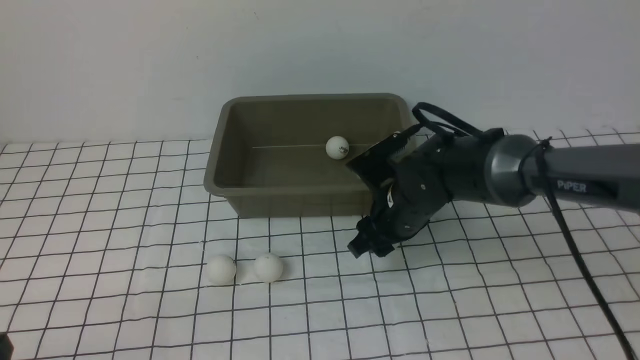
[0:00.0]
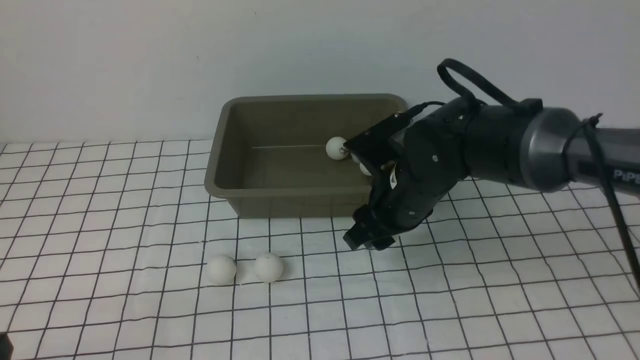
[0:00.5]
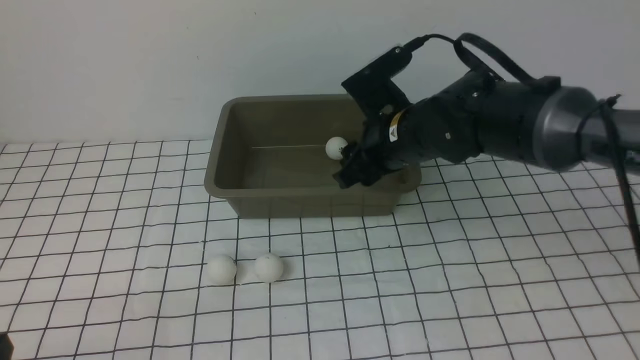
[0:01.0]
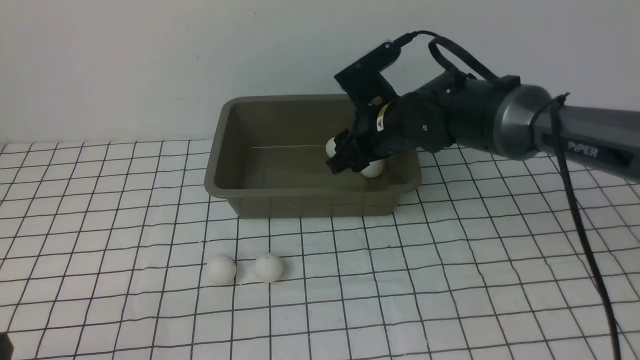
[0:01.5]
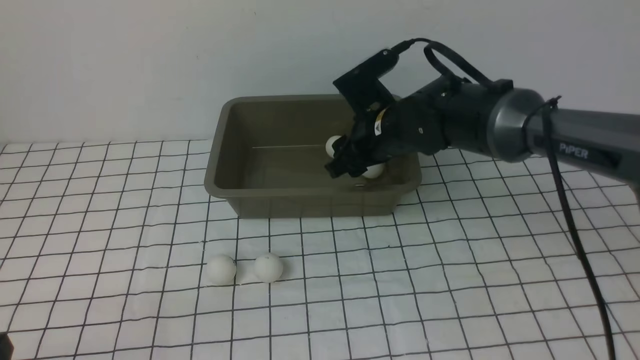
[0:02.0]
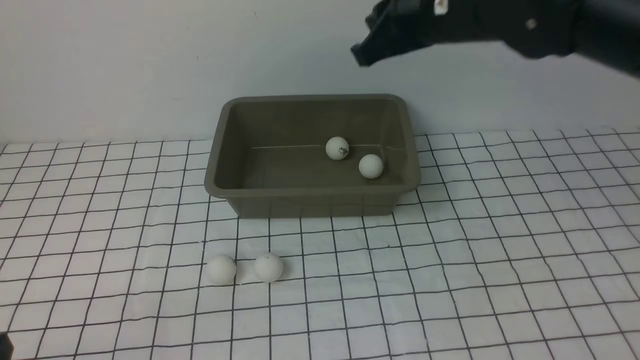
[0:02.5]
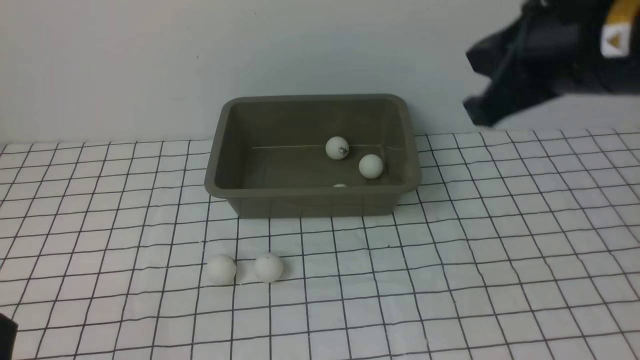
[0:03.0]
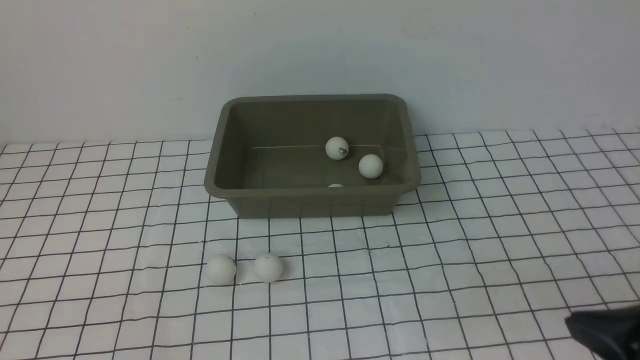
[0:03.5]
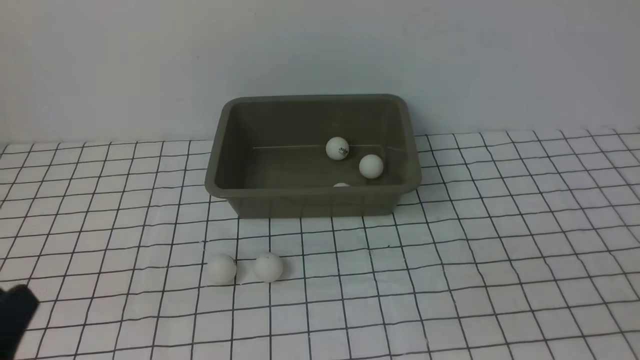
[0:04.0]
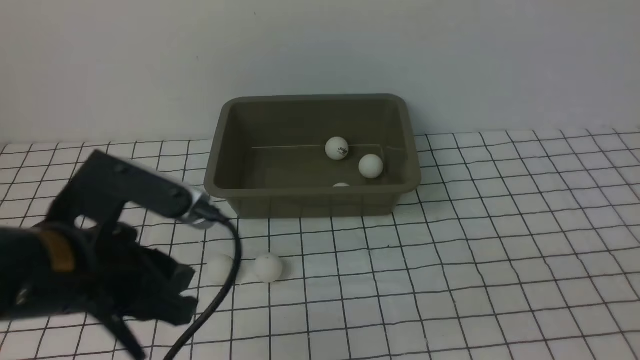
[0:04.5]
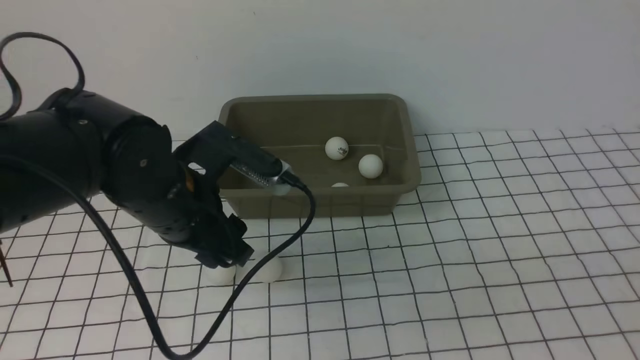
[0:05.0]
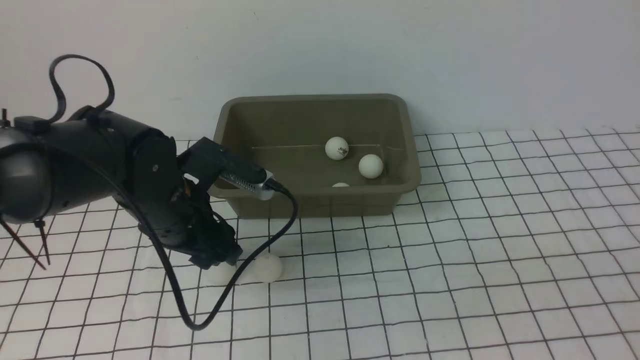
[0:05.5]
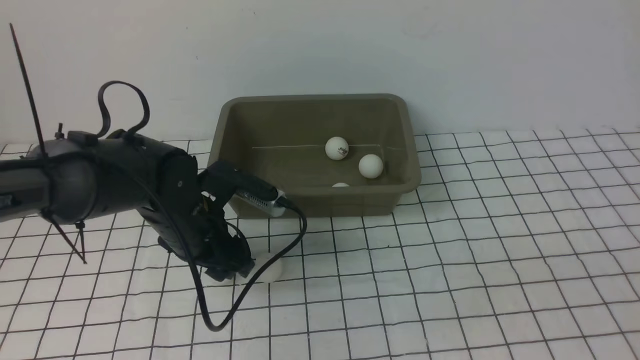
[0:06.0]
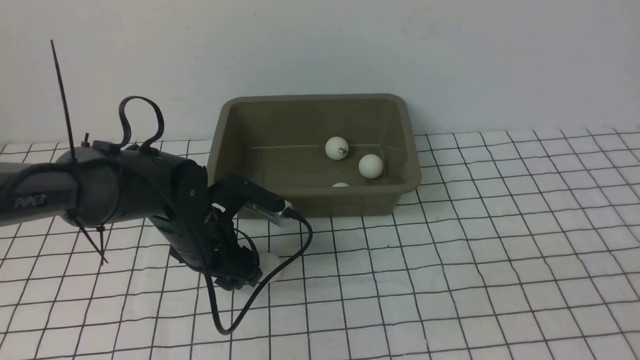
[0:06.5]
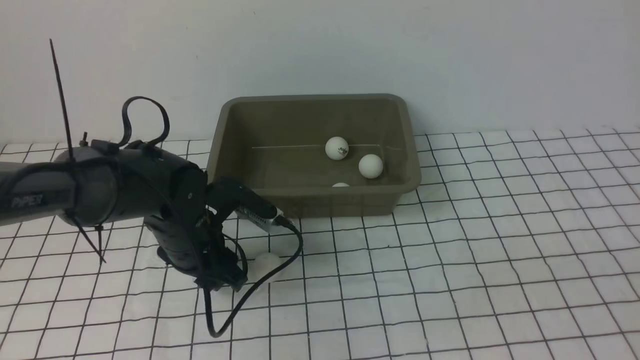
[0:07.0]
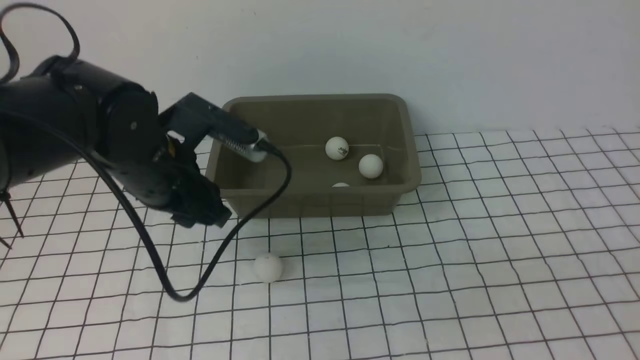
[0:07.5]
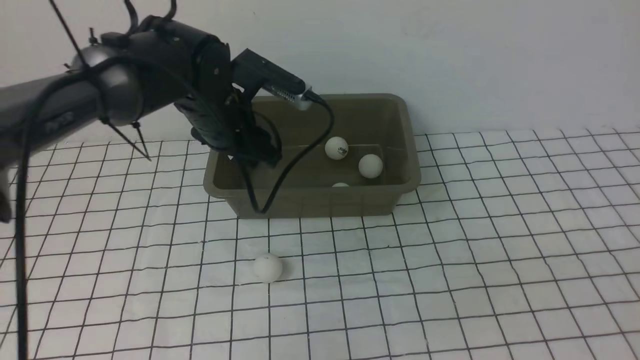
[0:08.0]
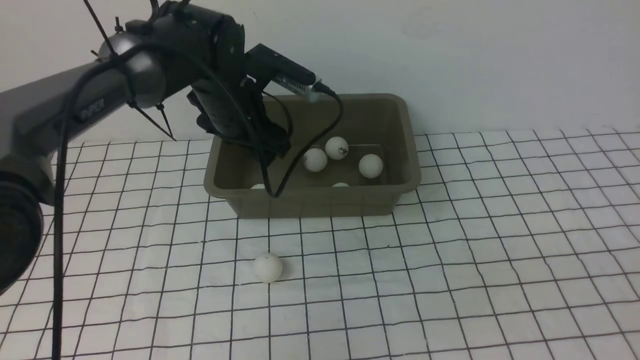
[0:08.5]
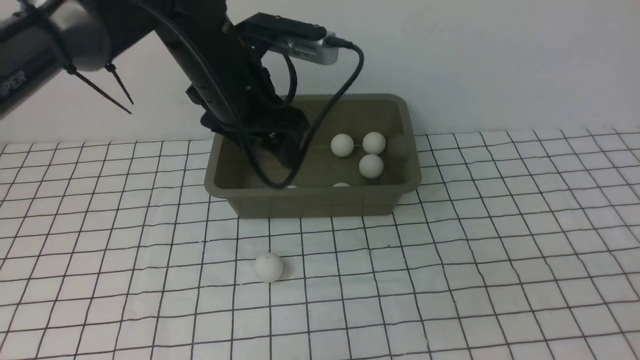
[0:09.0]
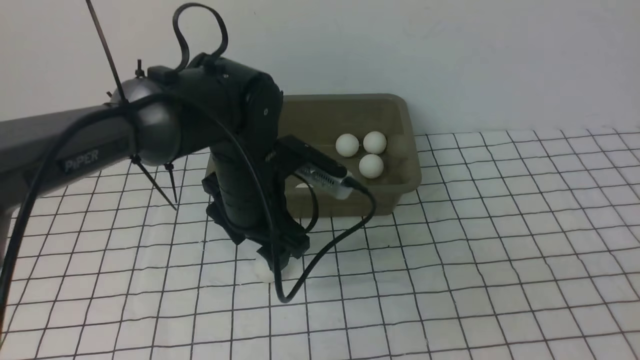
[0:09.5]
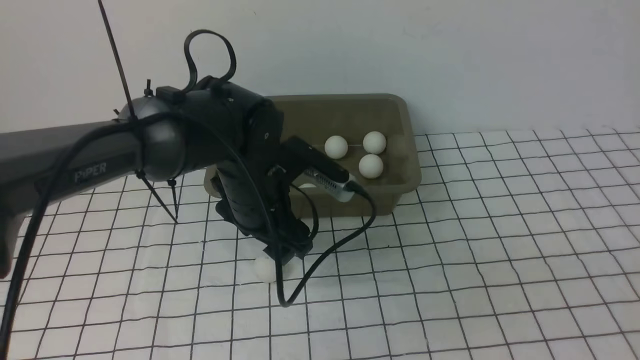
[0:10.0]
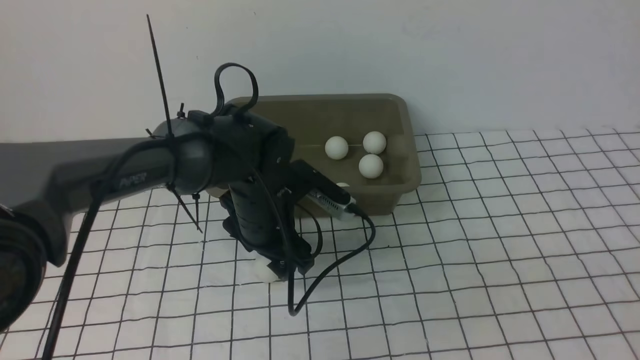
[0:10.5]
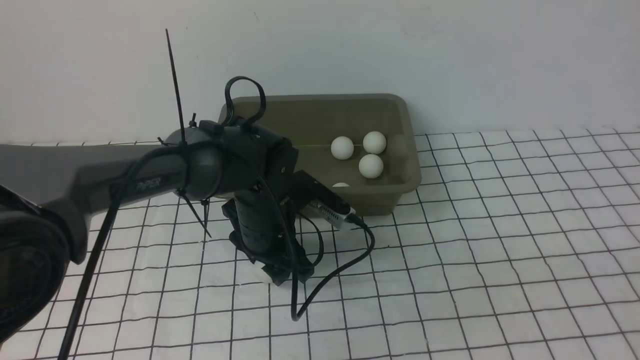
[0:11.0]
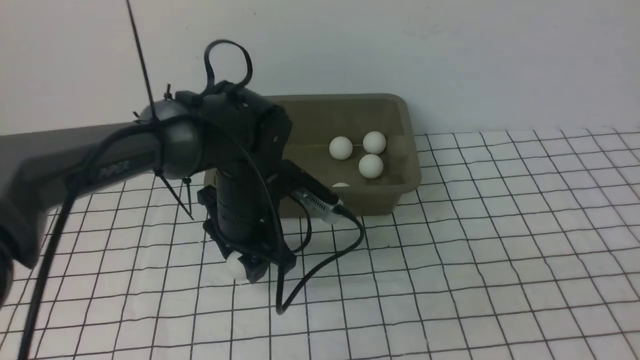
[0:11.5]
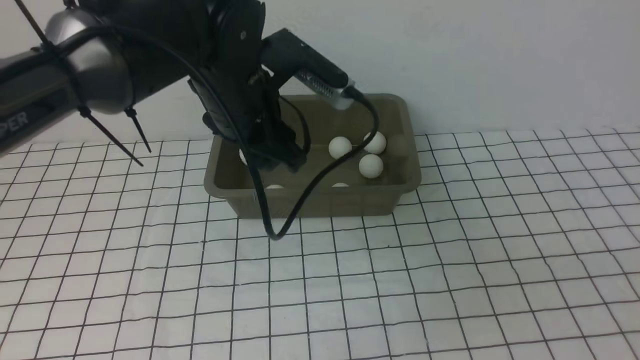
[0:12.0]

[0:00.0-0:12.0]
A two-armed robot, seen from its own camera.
Step, 0:00.5 to 0:02.0: use the right arm to put the table tennis ball into the box.
Step, 0:02.5 to 0:07.0: use the left arm to clamp the table tennis ball closest to it.
Step, 0:07.5 to 0:08.5: use the left arm to put the table tennis ball into the box.
Step, 0:09.0 to 0:11.5: use the left arm to clamp the table tennis ball closest to it.
0:00.0 to 0:02.0: The right gripper goes some 10 cm upward and forward.
0:02.0 to 0:04.0: The right gripper heads backward and to the right, covering roughly 40 cm, and closes up. The left gripper is displaced upward by about 5 cm.
0:04.0 to 0:06.0: The left gripper heads forward, covering approximately 25 cm, and opens.
0:06.0 to 0:08.0: The left gripper moves forward and upward, roughly 10 cm.
0:08.0 to 0:10.0: The left gripper is displaced backward by some 10 cm.
0:10.0 to 0:12.0: The left gripper travels upward by roughly 10 cm.

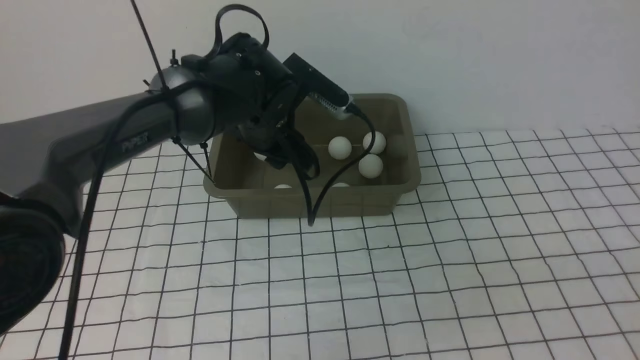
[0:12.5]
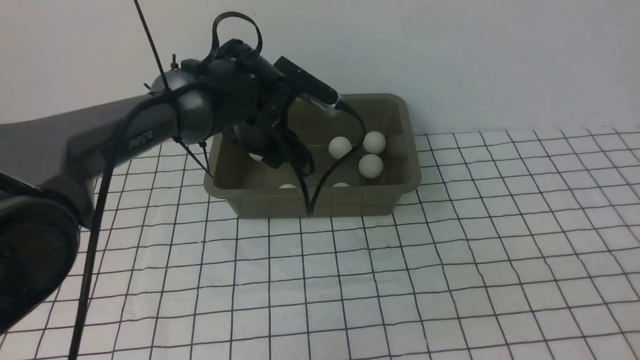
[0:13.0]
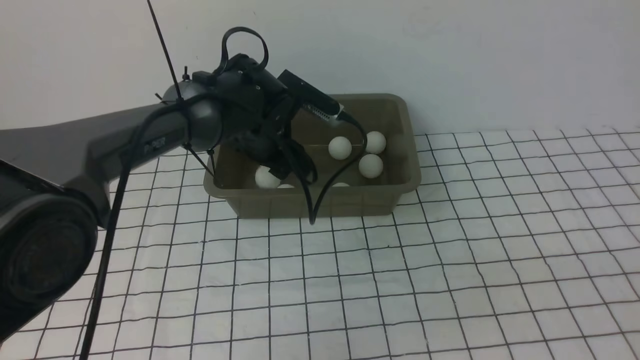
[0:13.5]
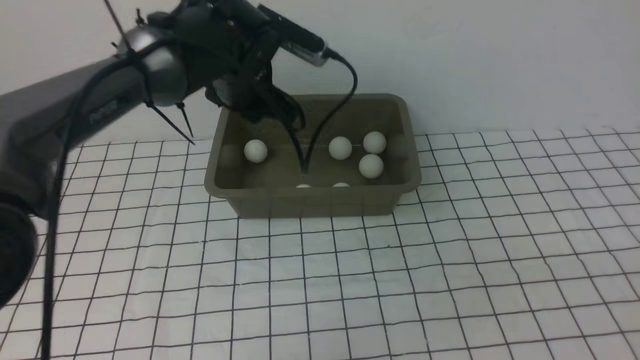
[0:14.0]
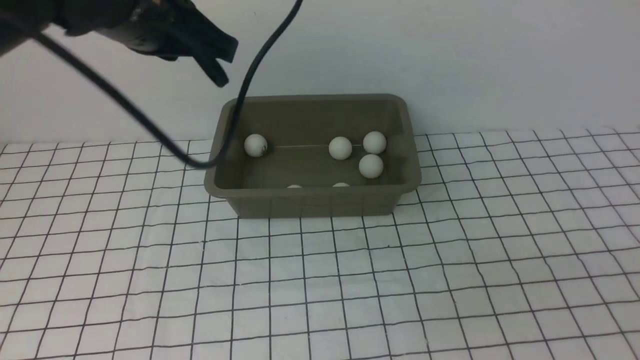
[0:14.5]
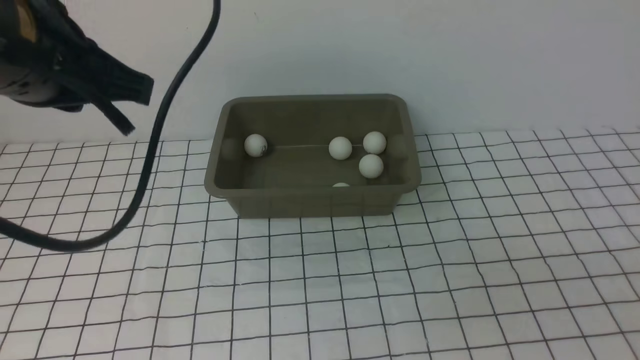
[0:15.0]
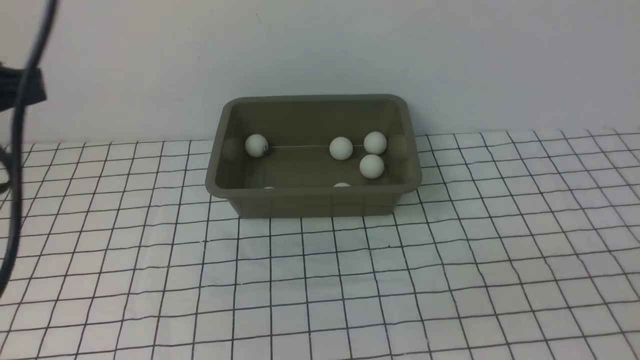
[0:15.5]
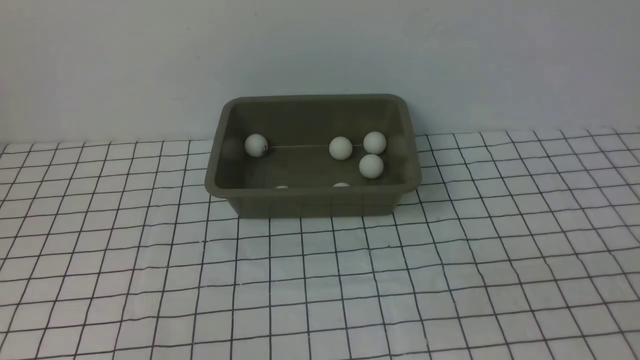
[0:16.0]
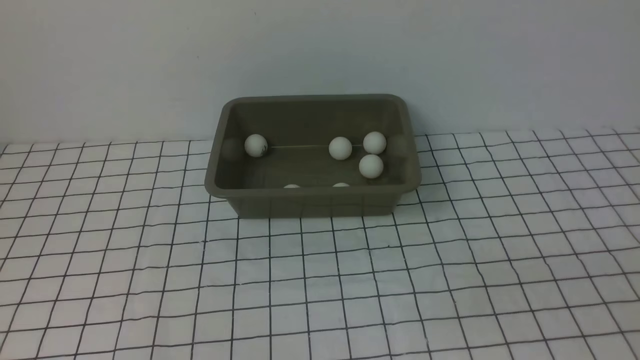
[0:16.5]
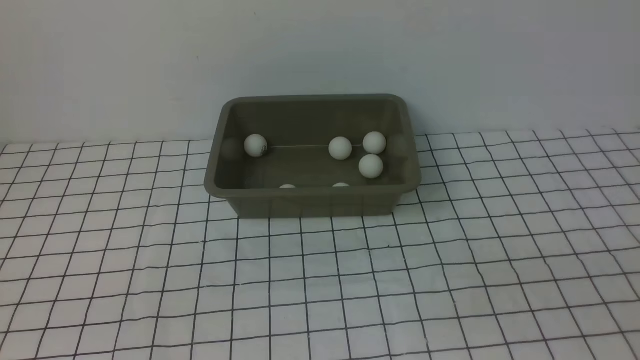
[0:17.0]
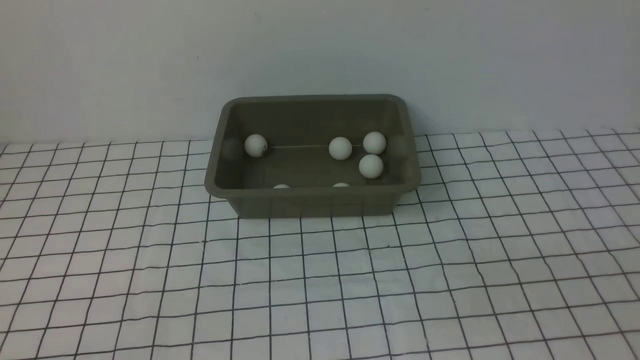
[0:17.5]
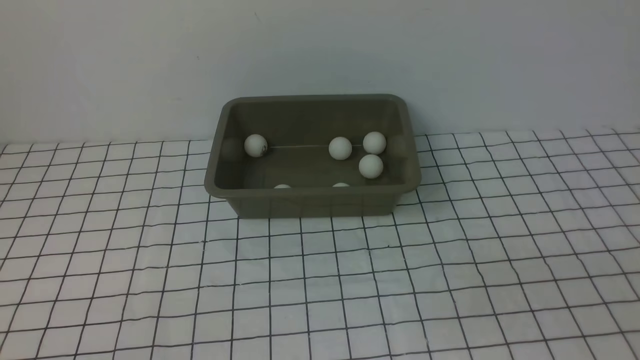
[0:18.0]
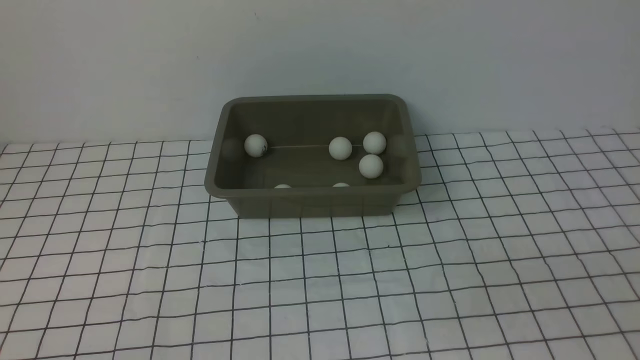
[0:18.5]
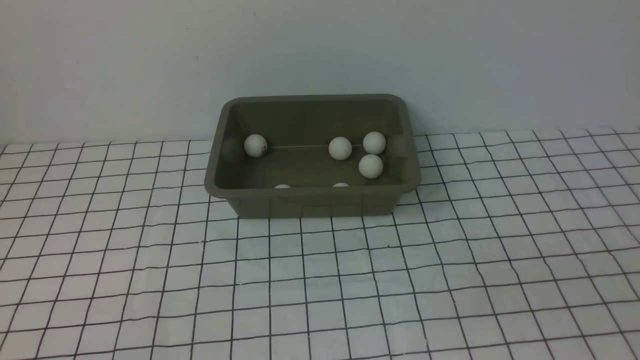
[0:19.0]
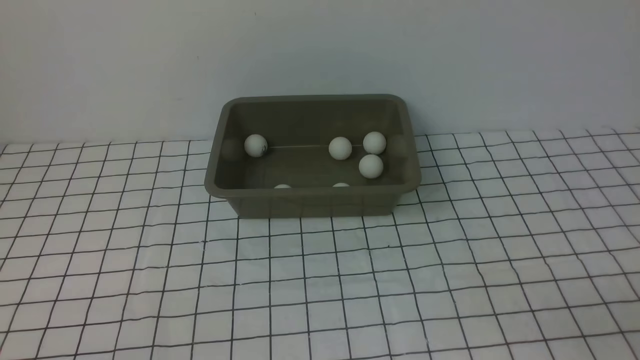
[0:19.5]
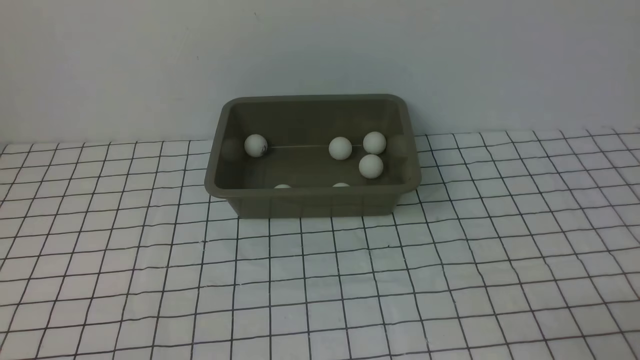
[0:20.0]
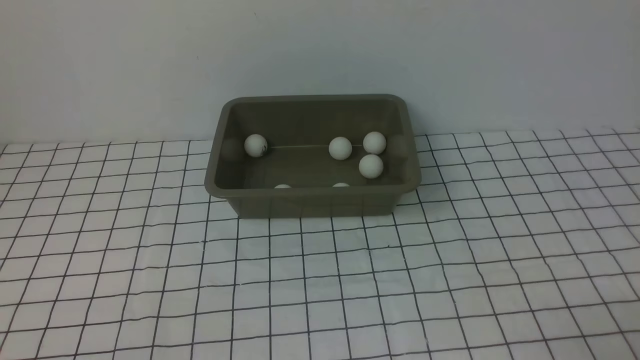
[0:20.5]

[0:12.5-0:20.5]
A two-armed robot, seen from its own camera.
Step, 0:12.5 to 0:13.5: use the left arm to put the table tennis ball into the box.
0:12.5 to 0:14.5: The left gripper is displaced upward, backward and to the left by about 20 cm, and closes its fingers.
0:14.5 to 0:16.5: The left gripper shifts roughly 30 cm backward, to the left and downward.
